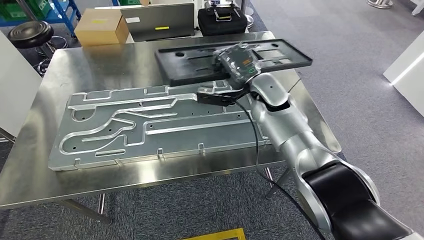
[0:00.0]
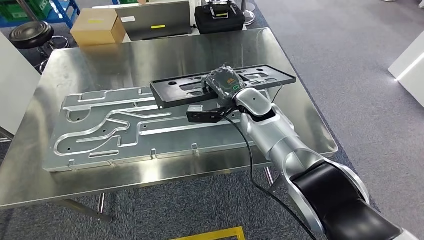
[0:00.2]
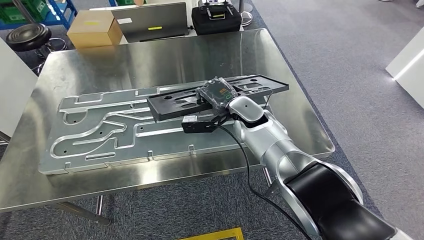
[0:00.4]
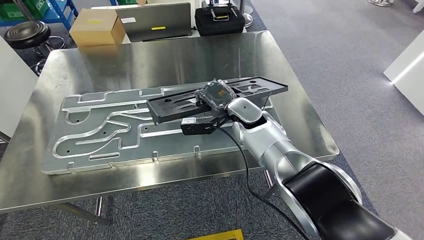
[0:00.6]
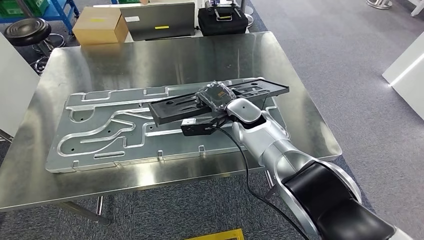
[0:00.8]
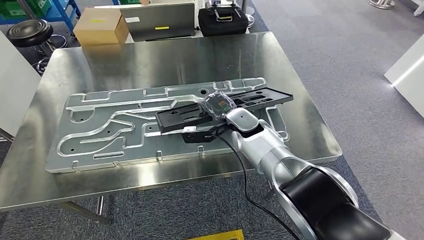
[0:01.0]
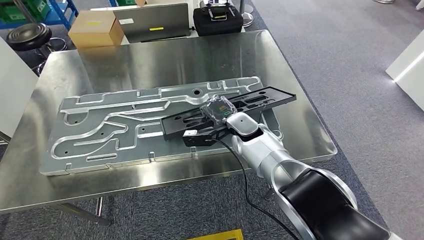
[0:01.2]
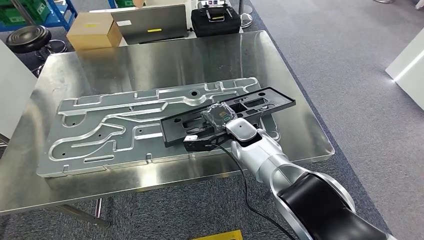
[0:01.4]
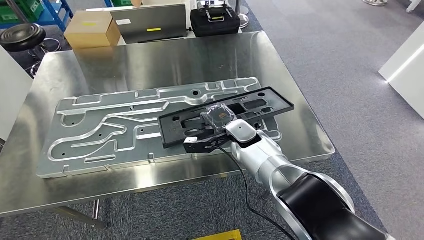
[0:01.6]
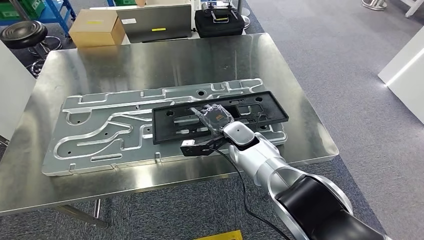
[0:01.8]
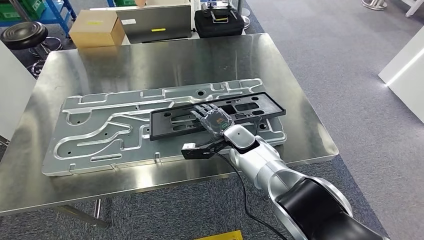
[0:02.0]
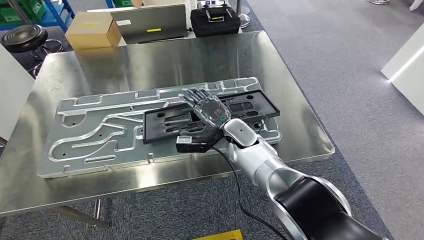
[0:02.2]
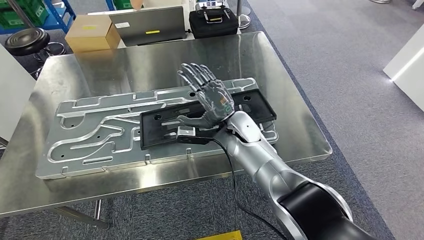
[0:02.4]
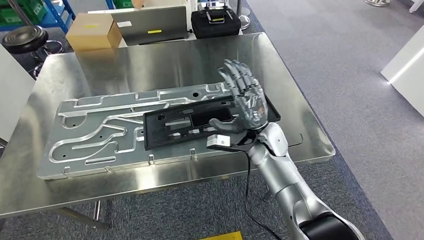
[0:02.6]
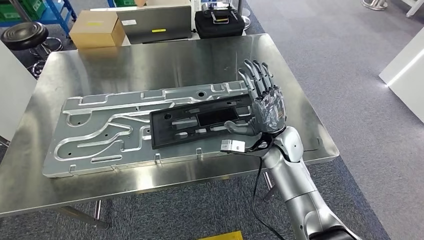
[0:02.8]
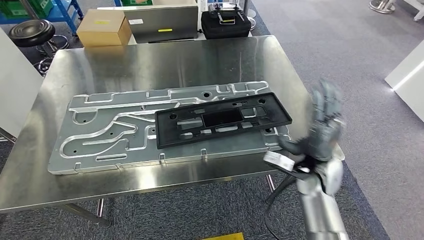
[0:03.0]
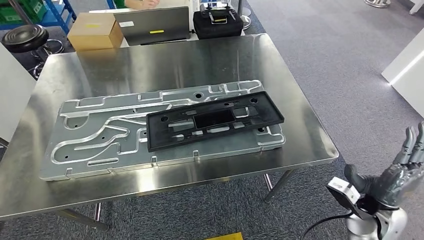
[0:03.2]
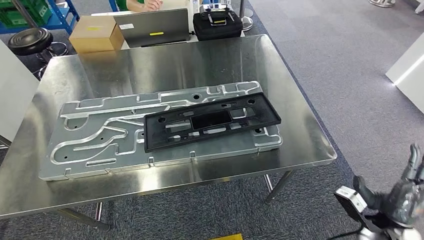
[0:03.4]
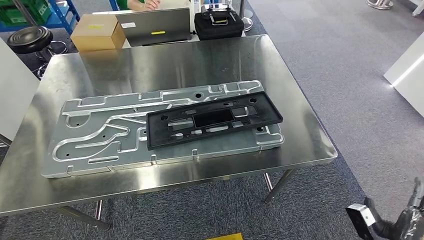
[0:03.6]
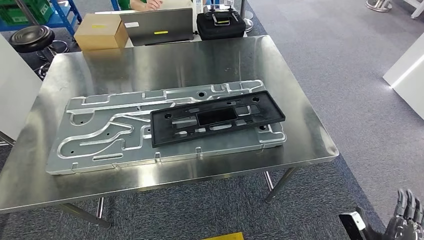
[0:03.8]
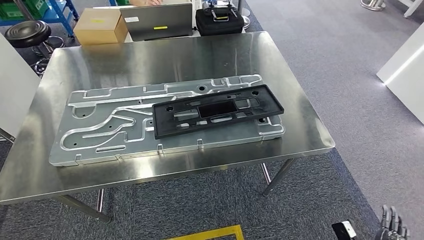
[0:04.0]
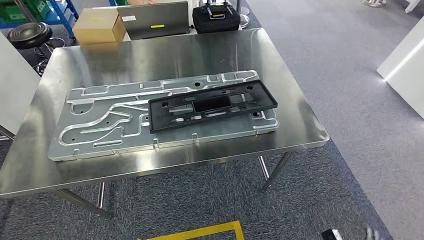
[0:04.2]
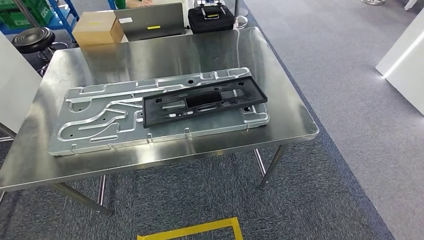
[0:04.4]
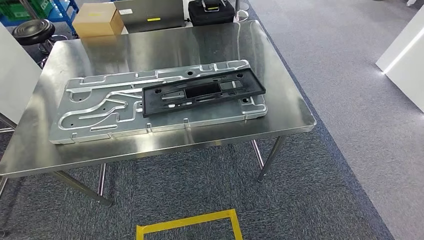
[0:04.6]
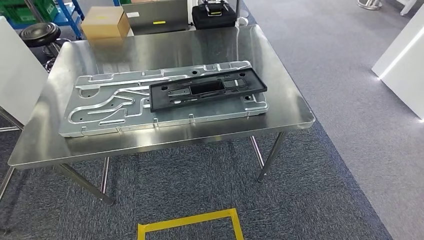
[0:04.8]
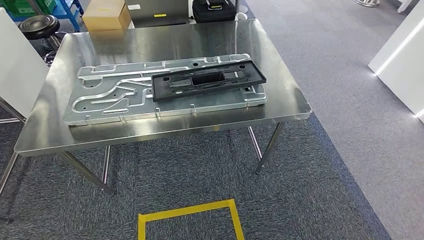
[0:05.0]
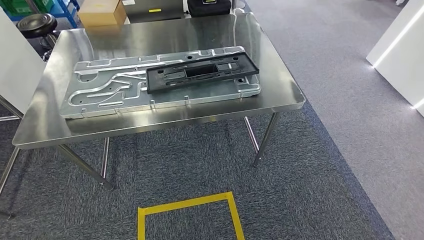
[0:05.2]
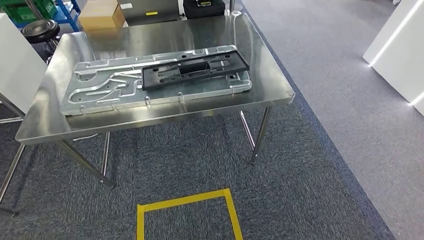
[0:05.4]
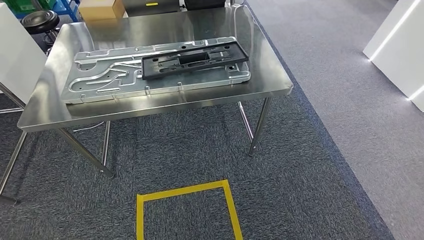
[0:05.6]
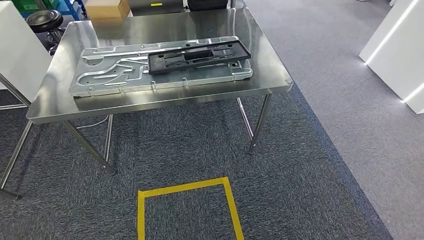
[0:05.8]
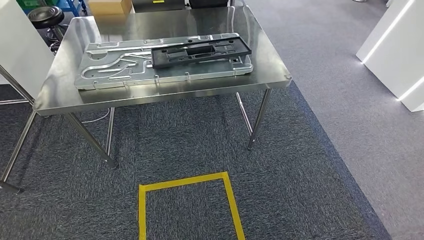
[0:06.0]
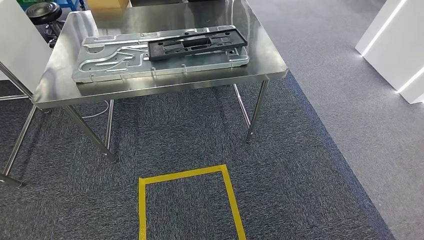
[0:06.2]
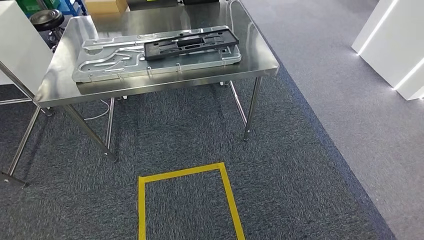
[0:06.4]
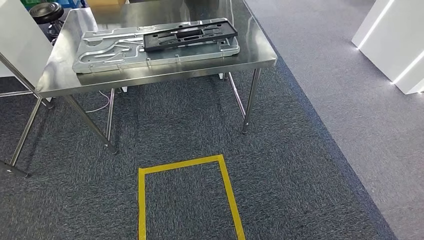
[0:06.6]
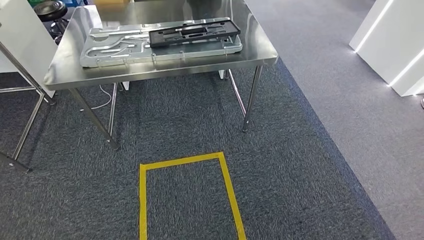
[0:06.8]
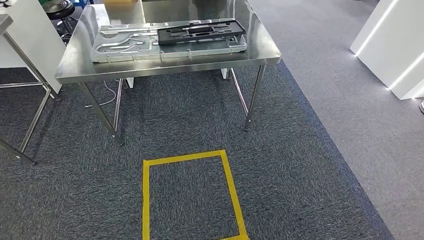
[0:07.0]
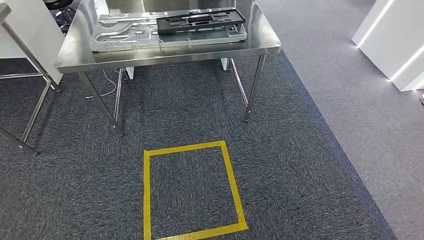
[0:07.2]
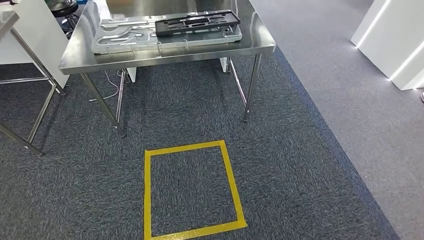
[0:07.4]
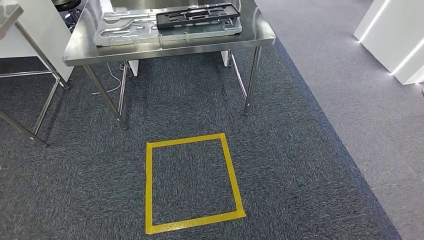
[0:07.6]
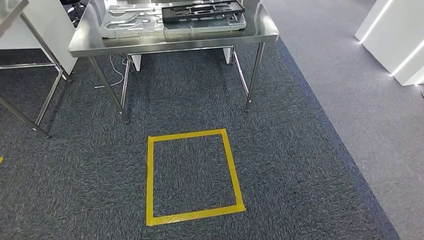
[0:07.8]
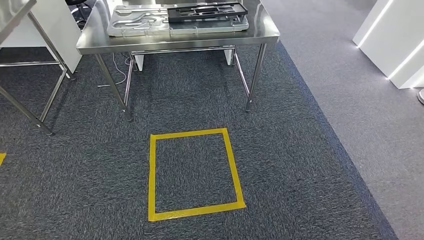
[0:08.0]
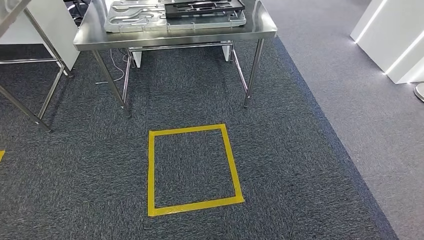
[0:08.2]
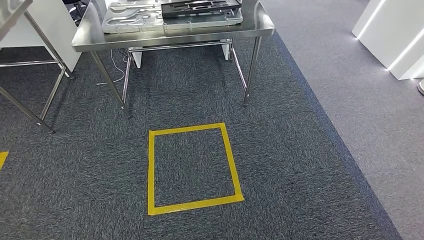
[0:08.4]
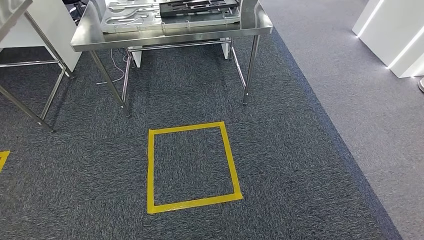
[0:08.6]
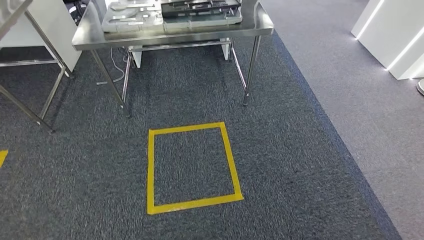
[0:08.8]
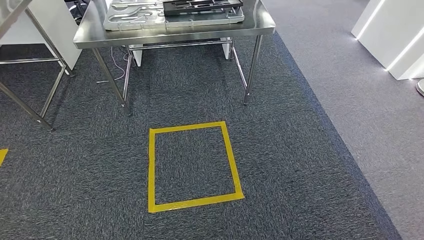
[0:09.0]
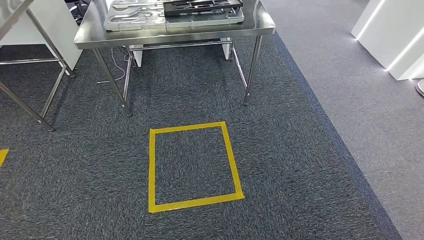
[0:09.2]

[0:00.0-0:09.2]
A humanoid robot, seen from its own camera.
Step, 0:00.0 to 0:03.0: Insert the large material into the corresponding slot on the workbench.
Step, 0:04.4 to 0:05.8: Move to the initial position of the shelf.
0:07.6 to 0:09.2: The hands move only a little.
